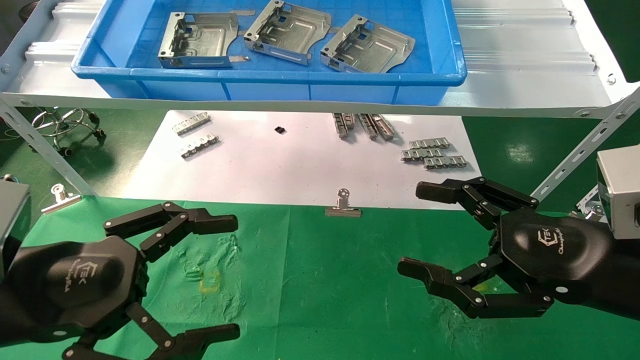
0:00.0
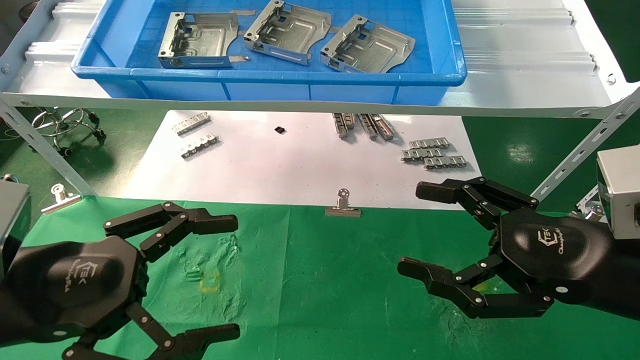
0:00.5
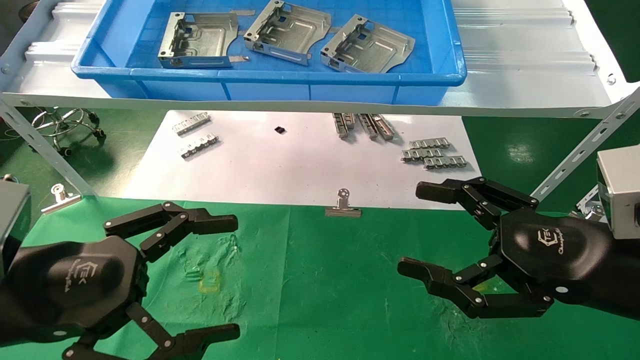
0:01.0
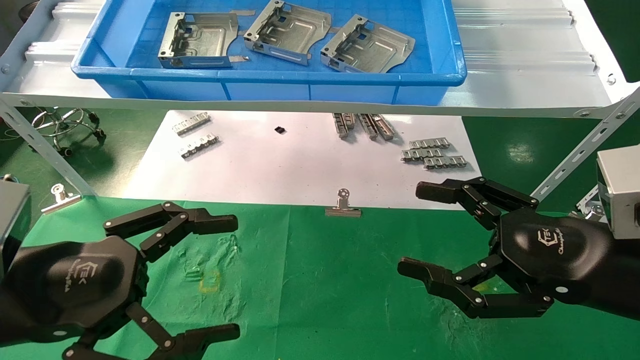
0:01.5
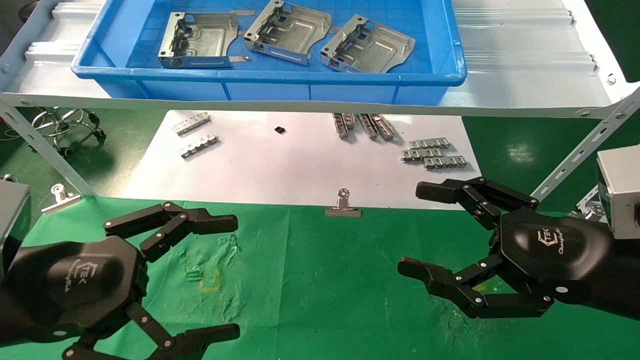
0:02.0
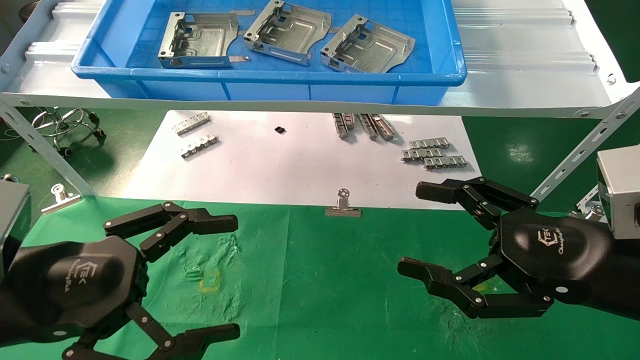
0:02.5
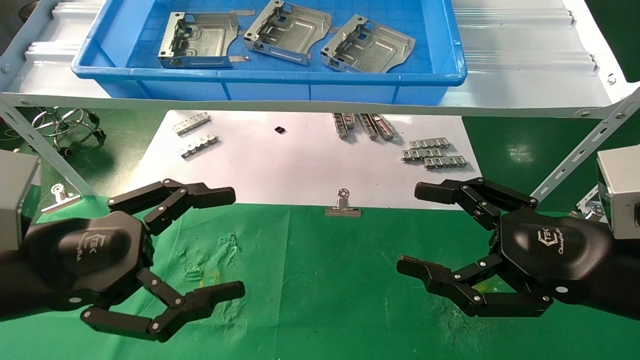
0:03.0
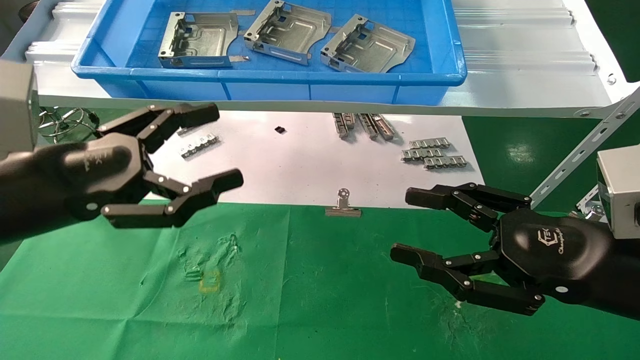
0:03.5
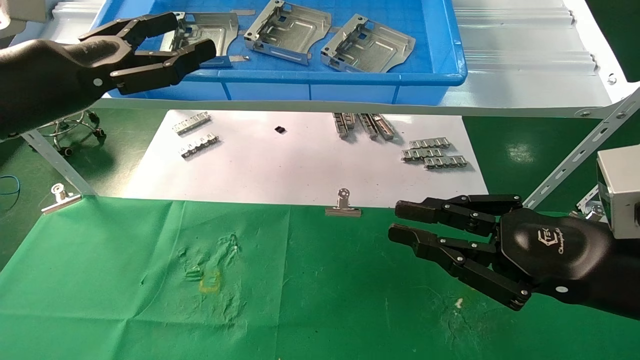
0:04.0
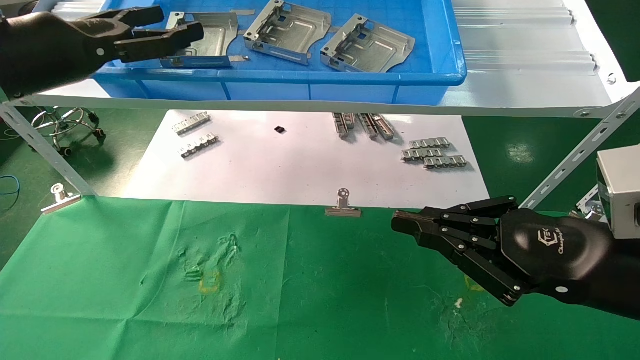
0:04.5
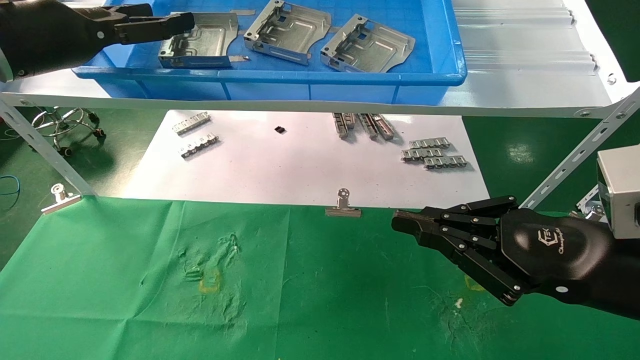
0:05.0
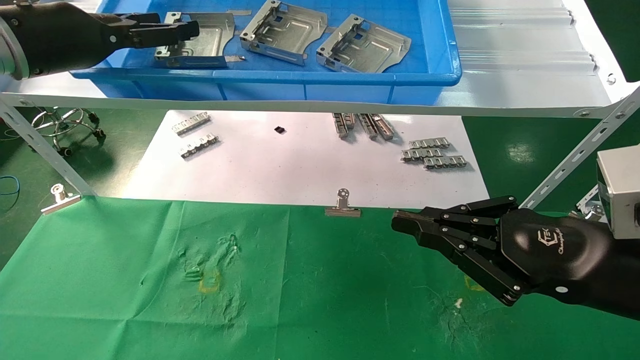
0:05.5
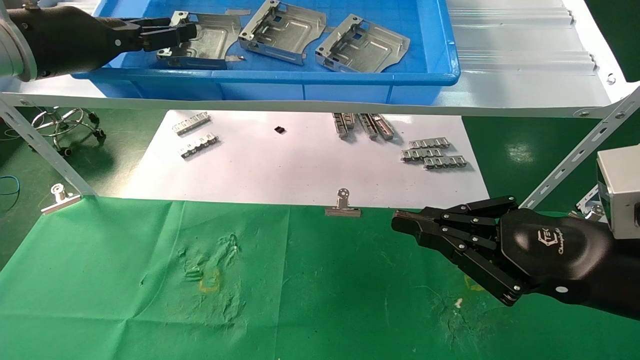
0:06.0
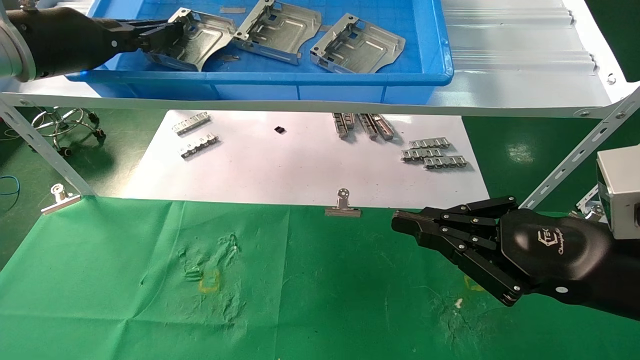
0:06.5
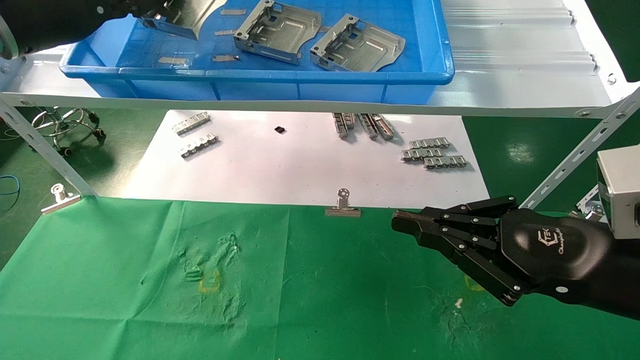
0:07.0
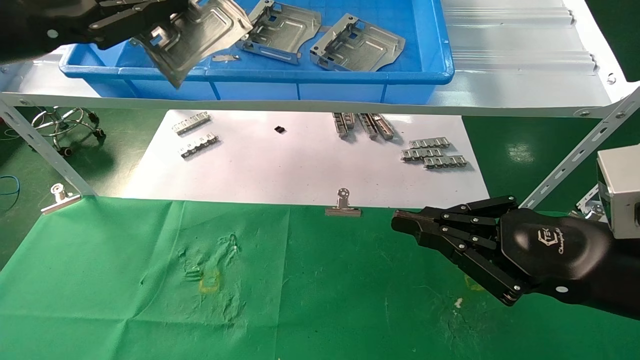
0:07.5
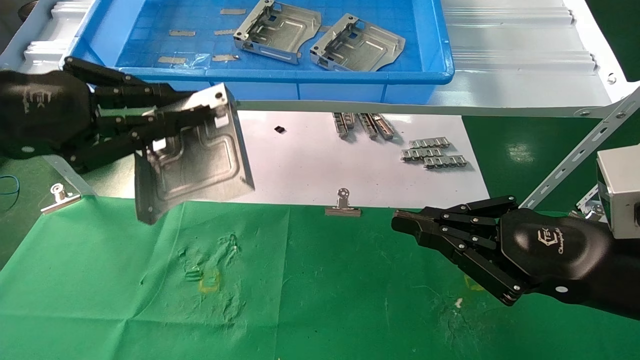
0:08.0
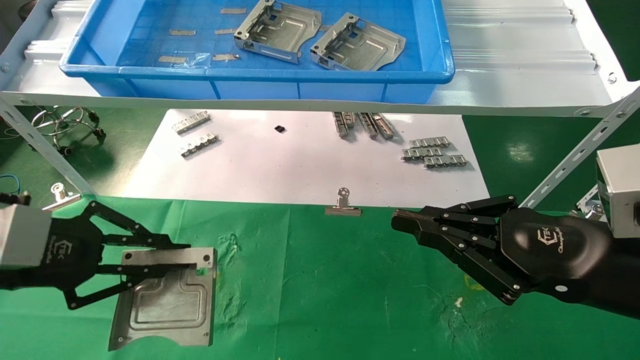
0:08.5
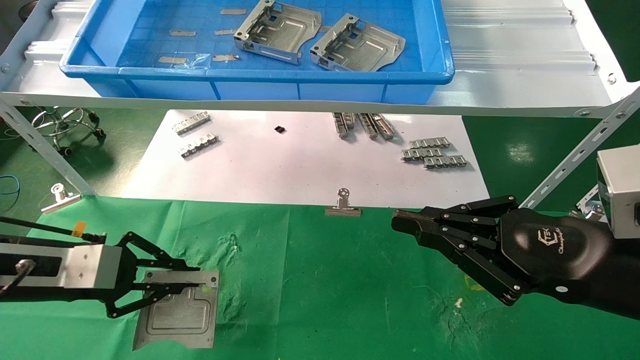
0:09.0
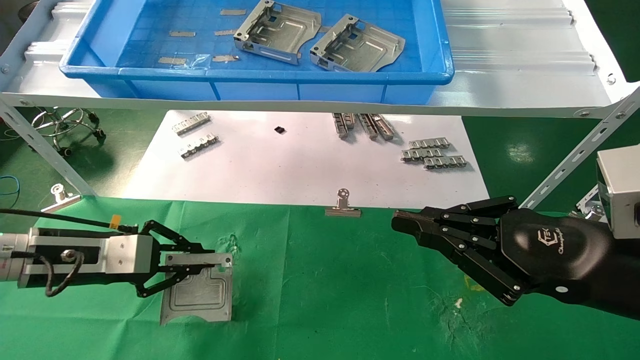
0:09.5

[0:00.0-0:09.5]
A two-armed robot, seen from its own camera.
Task of the whole recording: use the mechanical arm to pick up the parts and place them on the table.
Step, 0:03.5 to 0:06.0: Pick up the hard drive bracket from the feeding area.
0:00.0 to 0:02.0: Neither gripper changes place.
0:02.0 to 0:04.0: The right gripper closes its fingers, while the left gripper shifts approximately 15 cm upward and forward.
0:04.0 to 0:05.5: The left gripper goes about 10 cm forward and upward.
0:05.5 to 0:07.5: The left gripper is displaced backward by roughly 10 cm, and closes its fingers.
0:07.5 to 0:09.5: The left gripper goes roughly 25 cm downward.

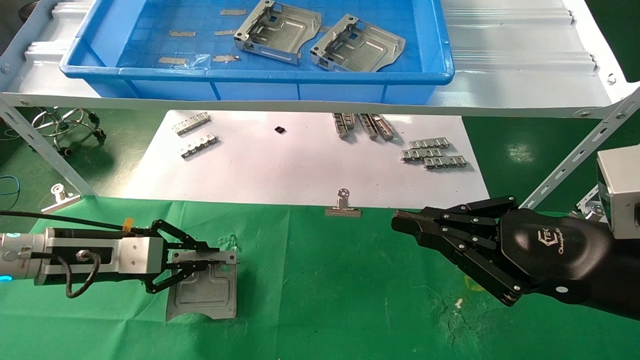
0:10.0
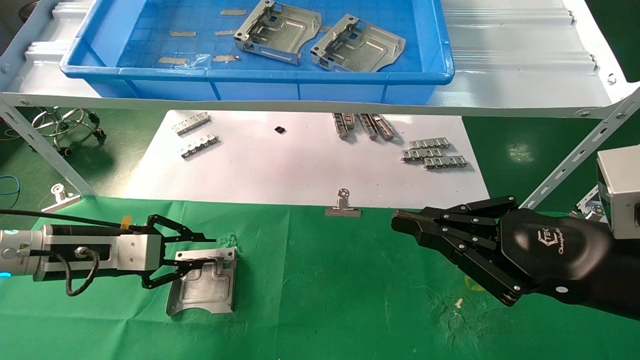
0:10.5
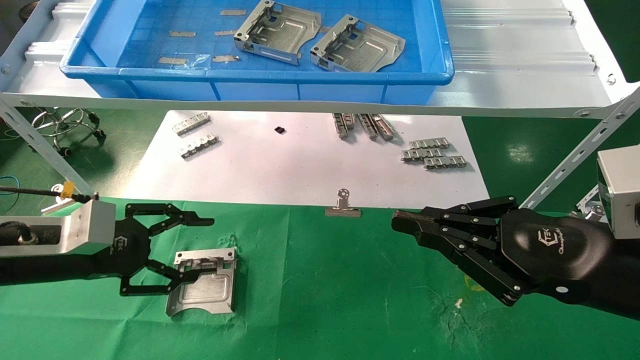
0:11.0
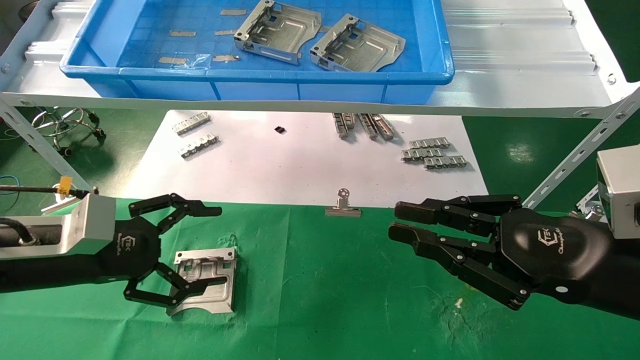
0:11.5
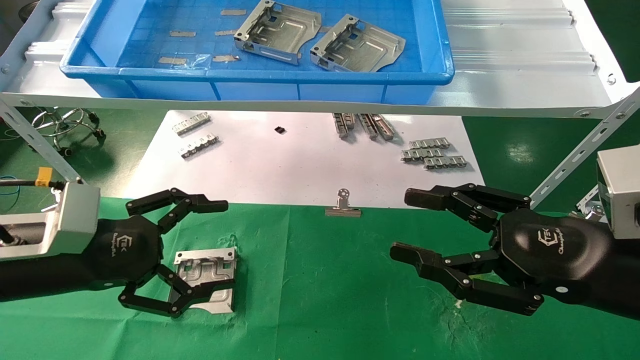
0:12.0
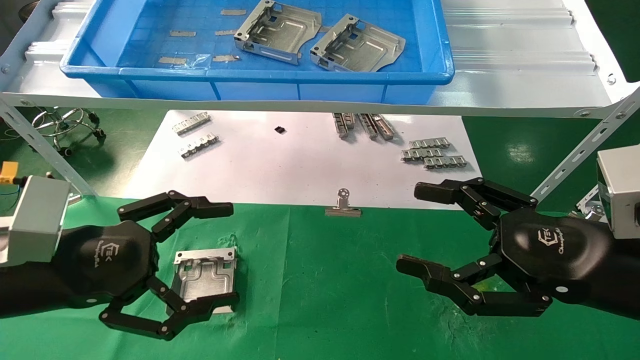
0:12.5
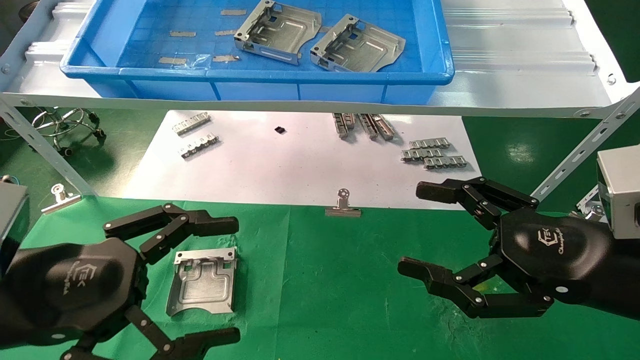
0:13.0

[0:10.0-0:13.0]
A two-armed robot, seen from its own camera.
Task of the whole recording: use the mechanical arm to pick up the parts and place them on the table.
0:10.0 to 0:11.5: The left gripper moves backward, about 5 cm, and opens.
0:11.5 to 0:13.0: The right gripper opens up. The left gripper goes roughly 10 cm backward.

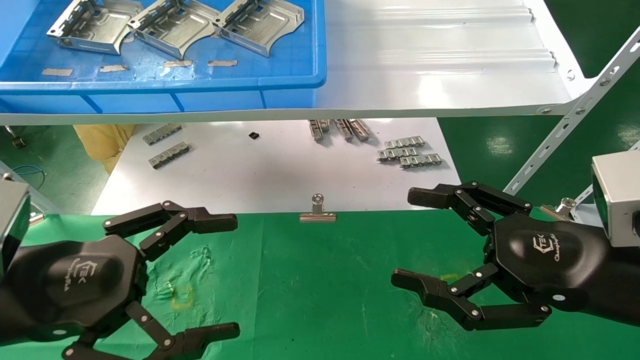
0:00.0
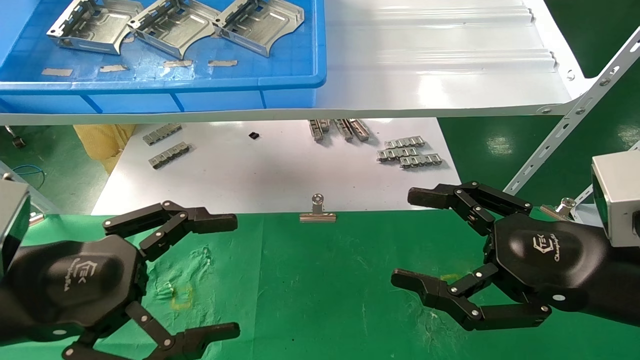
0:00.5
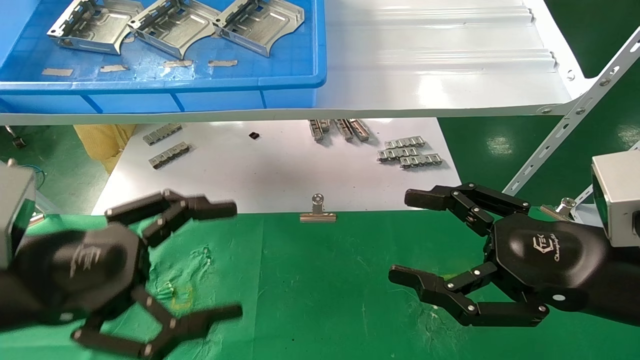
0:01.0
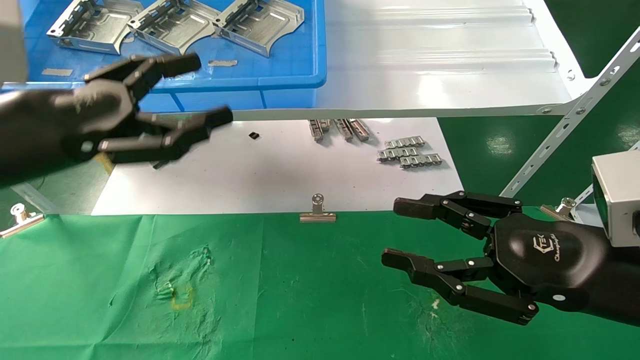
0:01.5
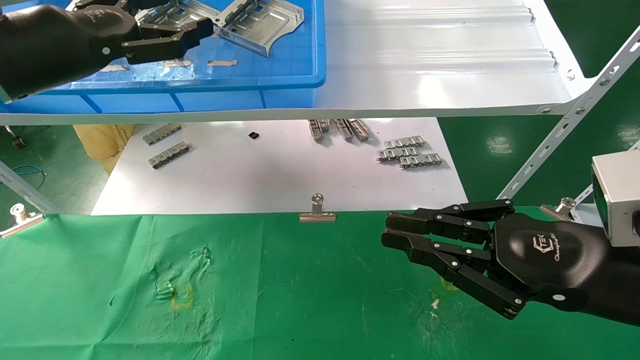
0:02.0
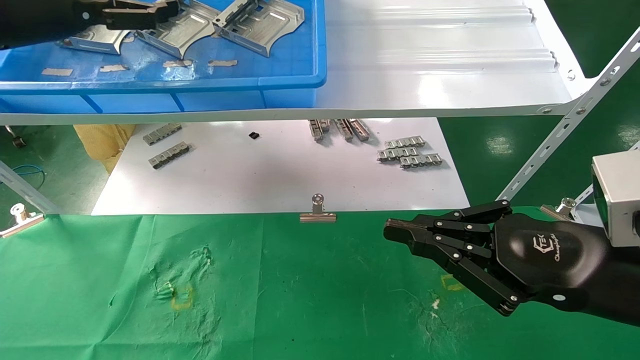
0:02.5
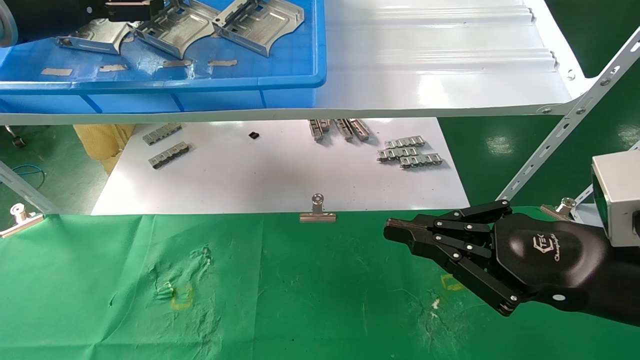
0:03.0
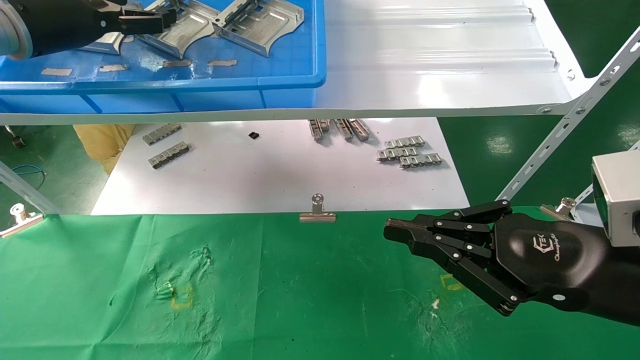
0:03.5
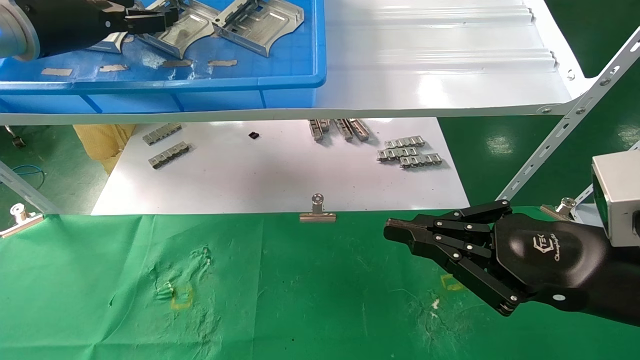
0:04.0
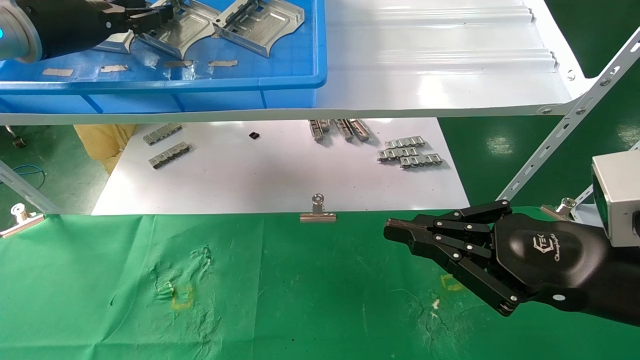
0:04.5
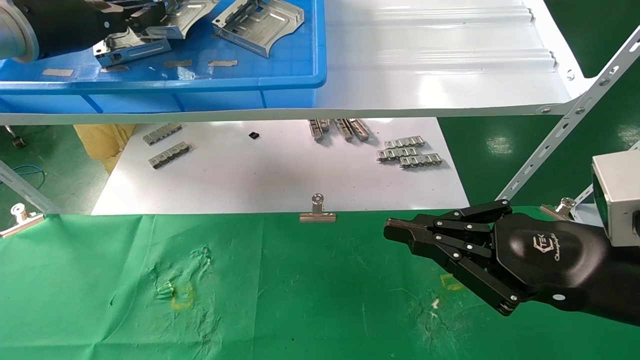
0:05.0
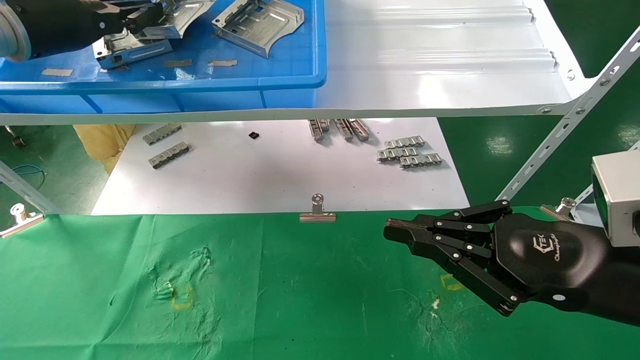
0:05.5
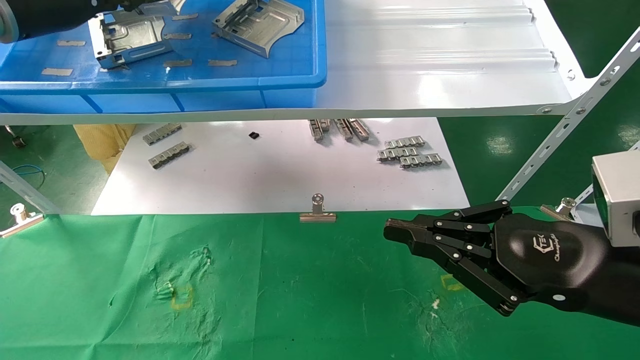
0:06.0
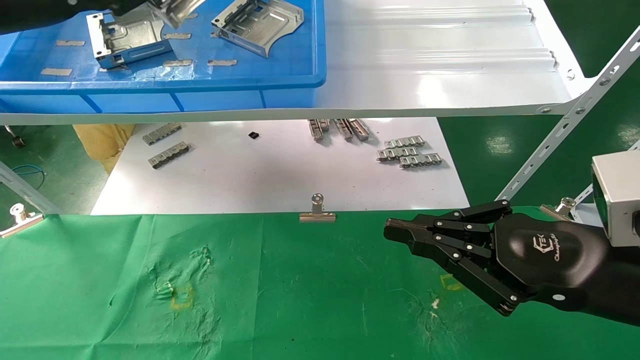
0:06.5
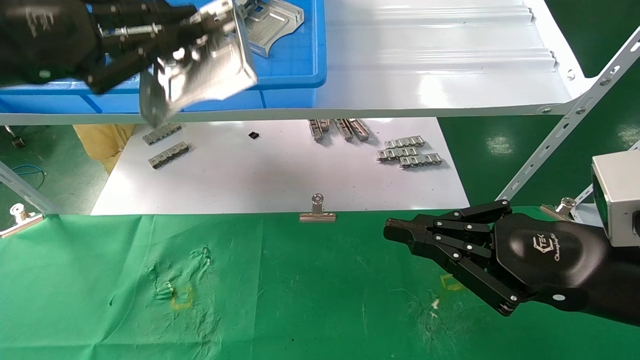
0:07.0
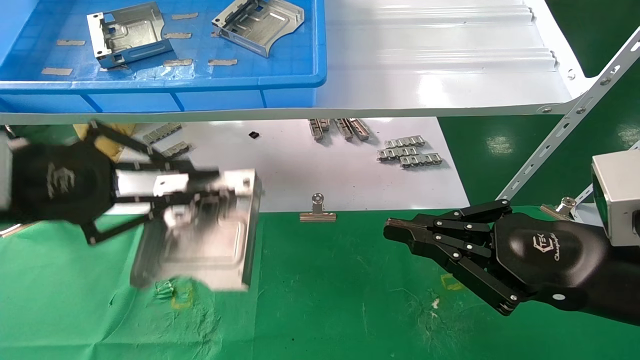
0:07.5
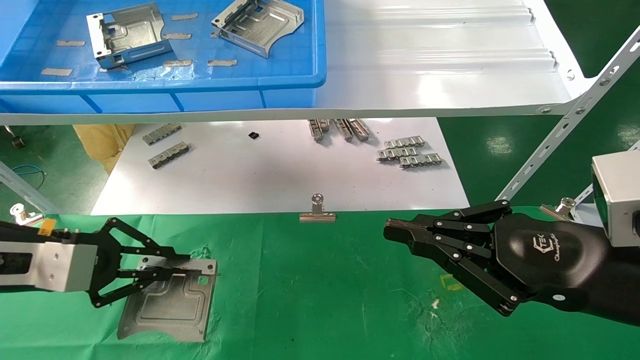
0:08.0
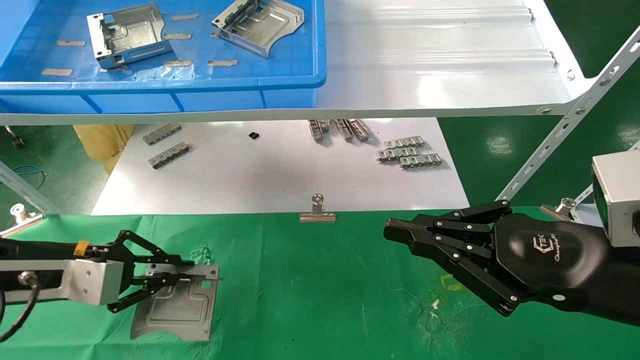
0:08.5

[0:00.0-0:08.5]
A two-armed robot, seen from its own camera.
Task of the whole recording: use the mechanical arm to pick up the parts and place them on the table.
Step, 0:01.5 to 0:04.5: Pick up the hard drive bracket from the feeding area.
0:00.0 to 0:02.0: The left gripper is displaced upward and forward by about 20 cm. Meanwhile the right gripper closes its fingers.
0:02.0 to 0:04.0: The left gripper goes roughly 10 cm forward.
0:04.0 to 0:06.5: The left gripper goes some 10 cm backward, and closes its fingers.
0:06.5 to 0:08.5: The left gripper goes approximately 25 cm downward.
